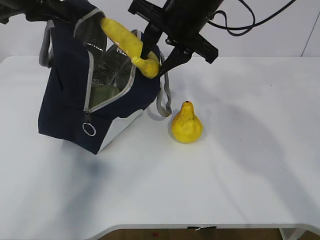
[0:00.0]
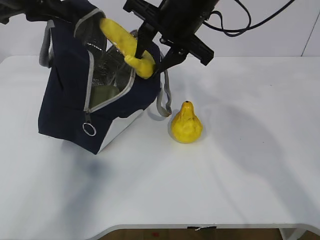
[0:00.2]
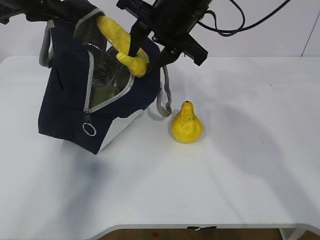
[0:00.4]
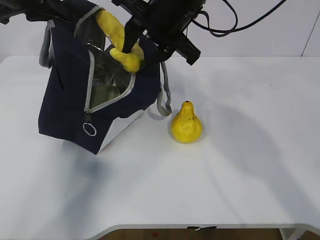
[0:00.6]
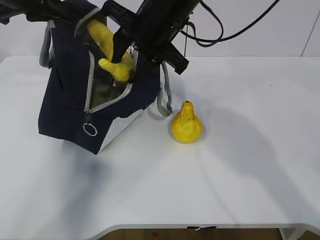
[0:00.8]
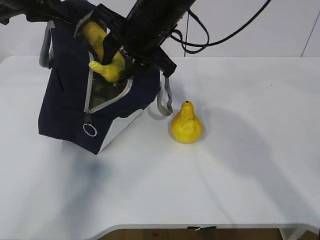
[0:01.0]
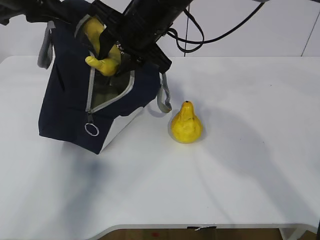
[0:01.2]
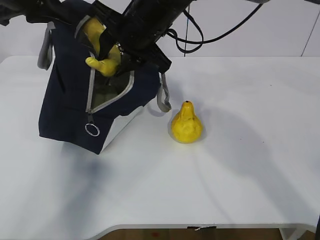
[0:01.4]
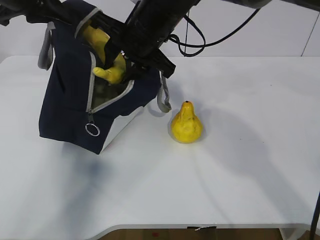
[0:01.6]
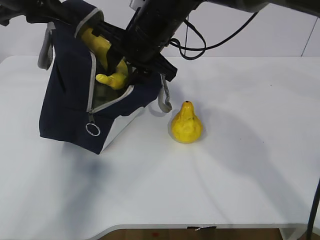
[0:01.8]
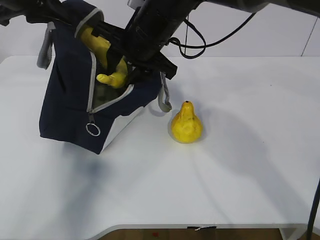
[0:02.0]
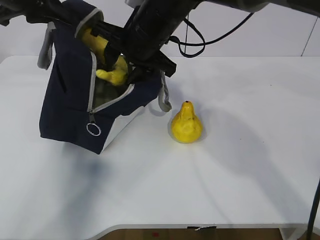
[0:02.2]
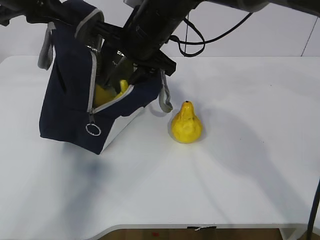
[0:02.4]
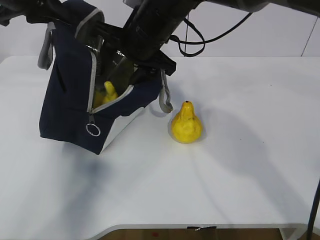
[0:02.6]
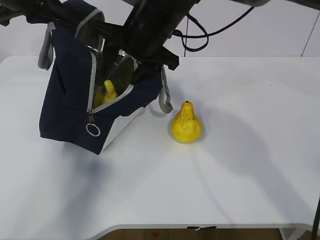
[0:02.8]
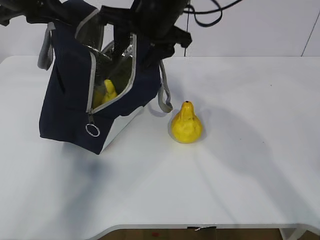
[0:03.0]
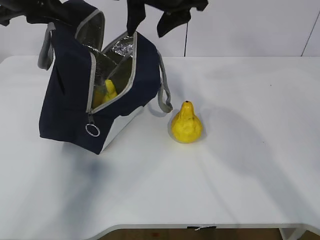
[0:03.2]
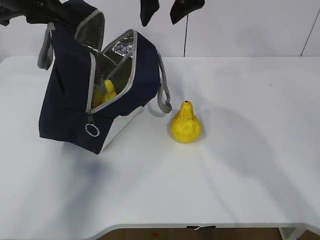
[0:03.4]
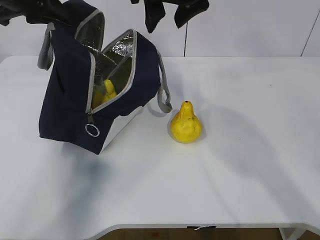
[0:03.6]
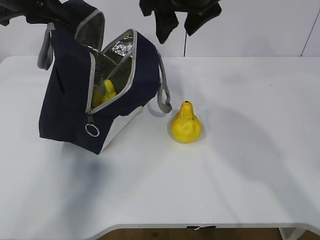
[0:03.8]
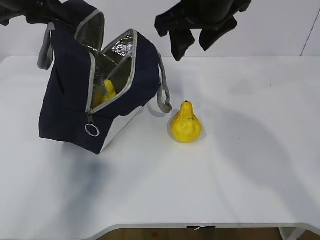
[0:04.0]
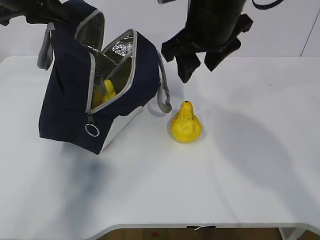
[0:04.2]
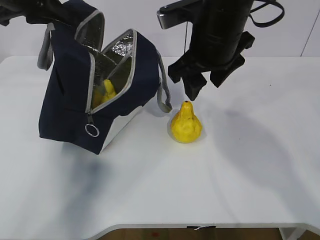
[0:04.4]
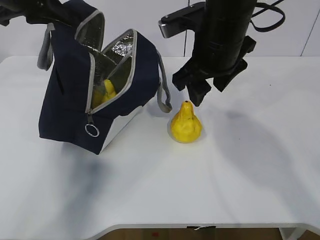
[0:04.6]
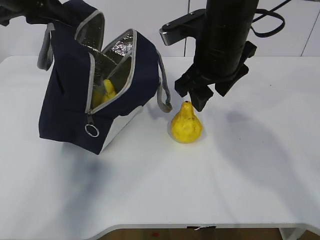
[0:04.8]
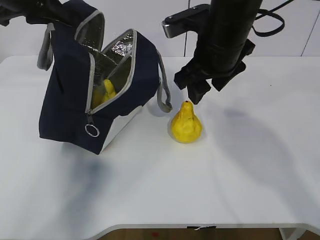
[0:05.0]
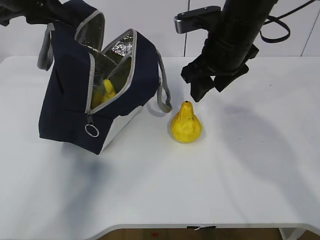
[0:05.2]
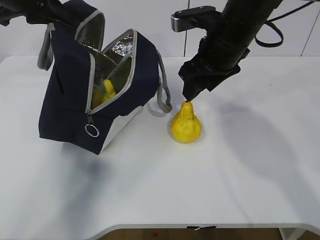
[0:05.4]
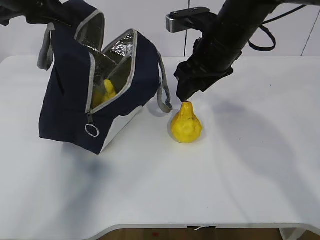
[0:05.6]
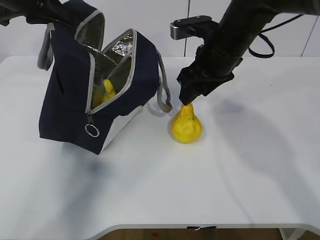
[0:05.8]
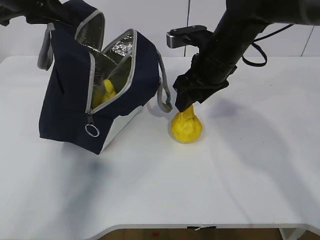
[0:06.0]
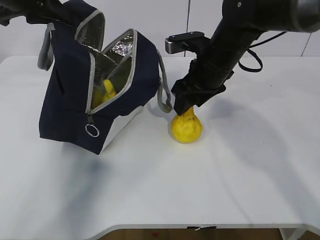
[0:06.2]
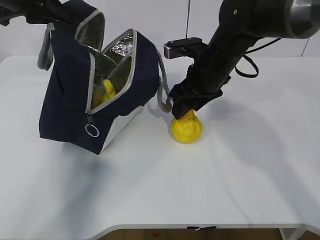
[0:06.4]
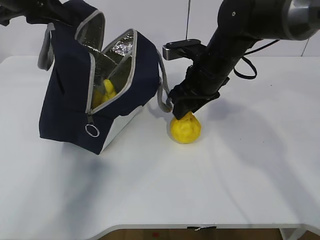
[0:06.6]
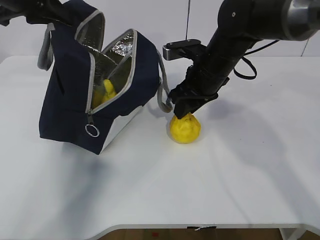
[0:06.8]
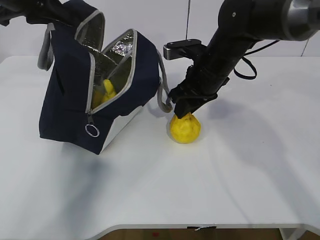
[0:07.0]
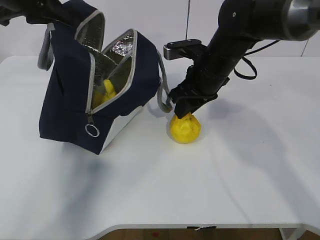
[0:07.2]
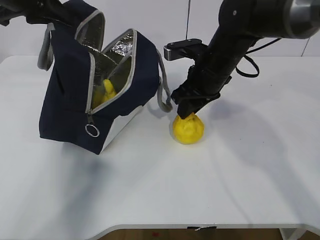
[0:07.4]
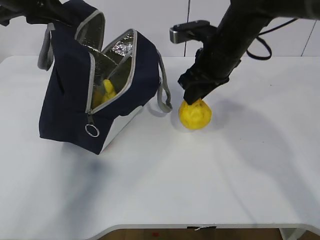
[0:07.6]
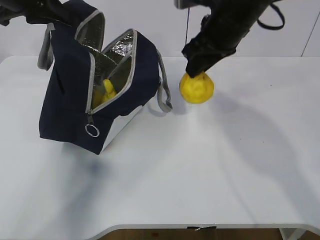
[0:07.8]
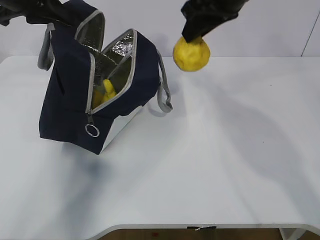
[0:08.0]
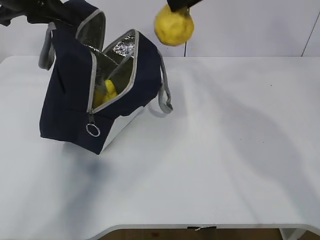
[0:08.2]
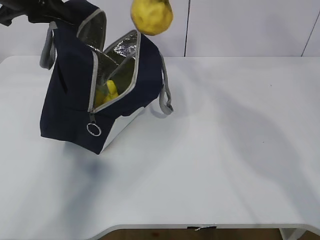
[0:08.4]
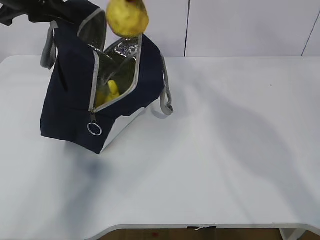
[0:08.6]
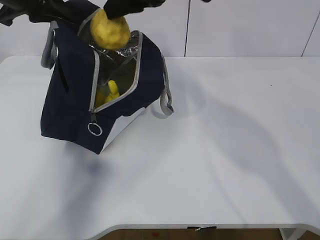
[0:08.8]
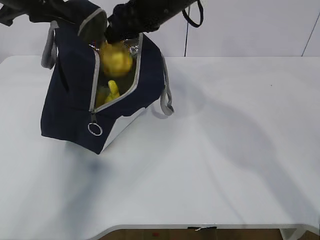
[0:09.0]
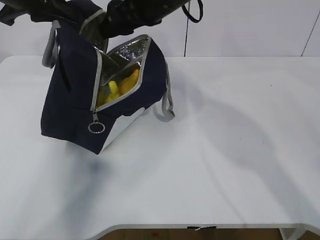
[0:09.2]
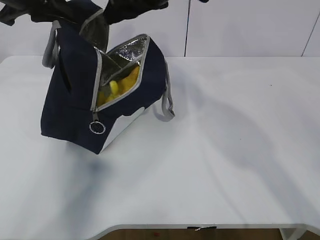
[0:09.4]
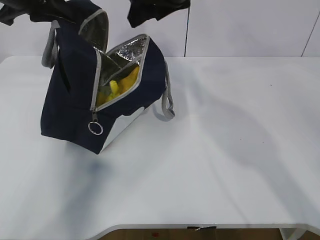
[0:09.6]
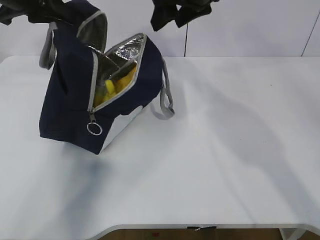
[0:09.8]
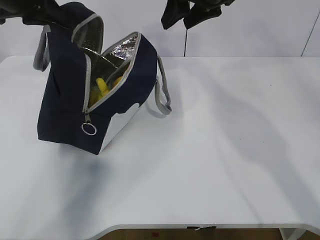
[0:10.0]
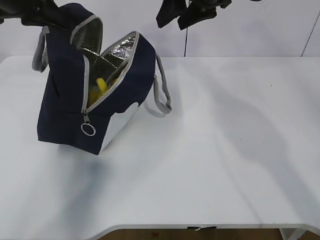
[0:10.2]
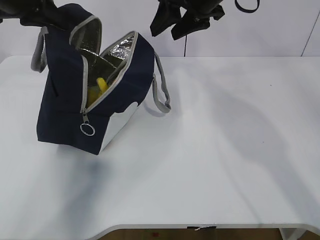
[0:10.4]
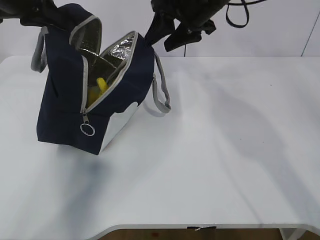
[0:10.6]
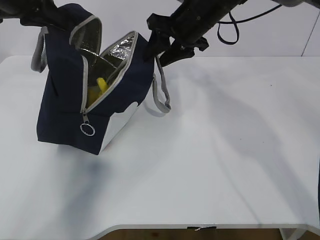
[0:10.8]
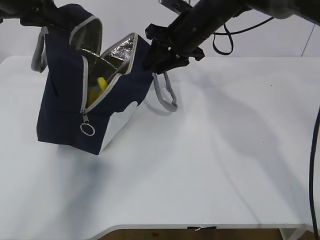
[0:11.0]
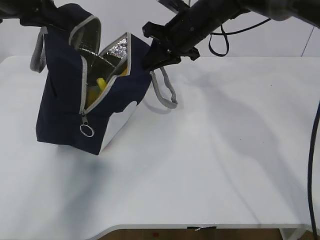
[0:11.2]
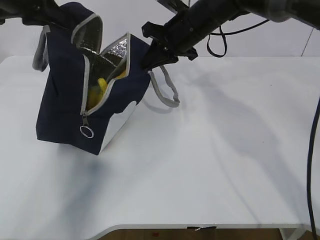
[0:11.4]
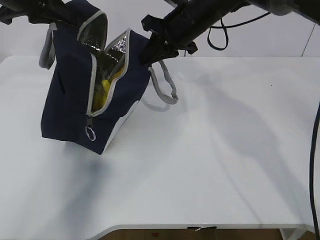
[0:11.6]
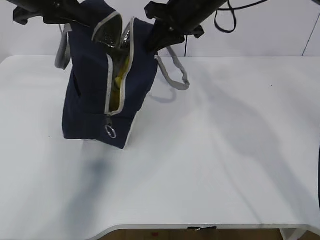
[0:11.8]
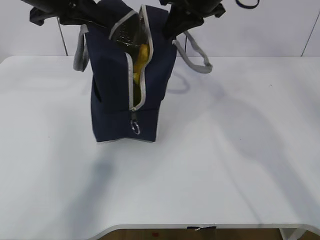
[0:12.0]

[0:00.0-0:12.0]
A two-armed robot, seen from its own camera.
Step, 0:03.8 to 0:05.2: Grab the lunch bag with your right hand.
Step, 0:05.4 to 0:07.8: Move the lunch bag to the right.
0:00.0 to 0:01.6: The right gripper shifts approximately 5 cm to the left.
0:01.6 to 0:03.0: The right gripper opens its fingers.
0:03.0 to 0:04.4: The right gripper goes some 5 cm to the right, and goes upward and returns, about 5 cm each way.
0:04.4 to 0:06.0: The right gripper travels downward by roughly 5 cm.
0:06.0 to 0:07.6: The right gripper closes.
0:07.6 to 0:09.0: The right gripper travels to the left and upward by some 10 cm.
0:09.0 to 0:10.4: The right gripper shifts roughly 10 cm to the right.
0:10.4 to 0:12.0: The right gripper reaches about 10 cm downward, then returns, and closes. Meanwhile the left gripper travels to the right by roughly 5 cm.

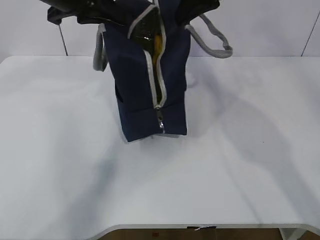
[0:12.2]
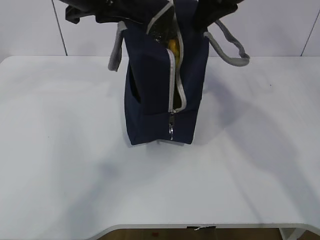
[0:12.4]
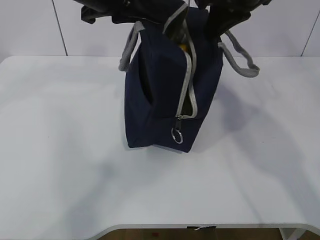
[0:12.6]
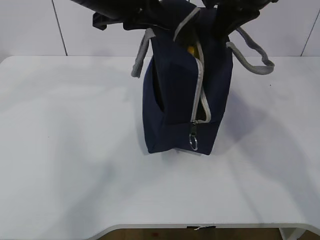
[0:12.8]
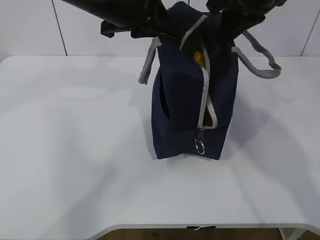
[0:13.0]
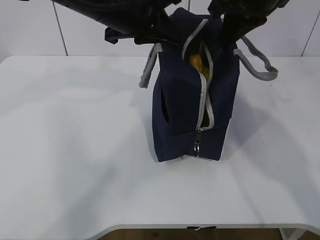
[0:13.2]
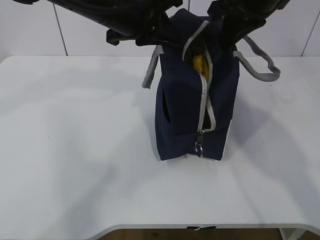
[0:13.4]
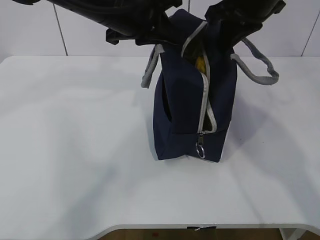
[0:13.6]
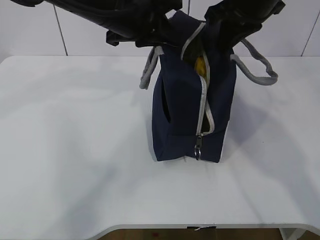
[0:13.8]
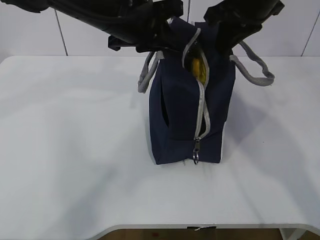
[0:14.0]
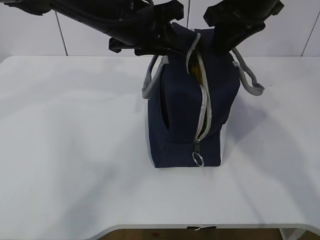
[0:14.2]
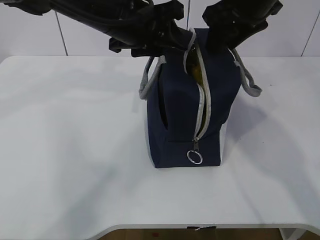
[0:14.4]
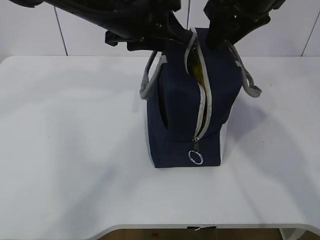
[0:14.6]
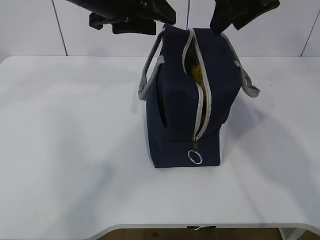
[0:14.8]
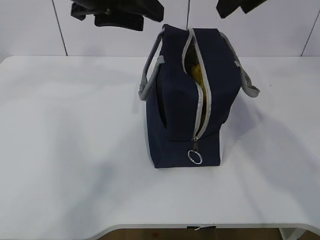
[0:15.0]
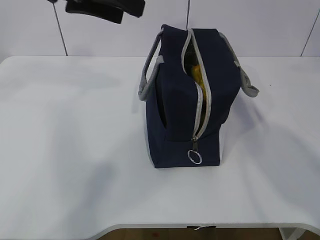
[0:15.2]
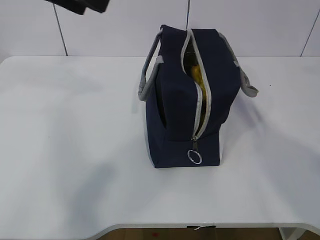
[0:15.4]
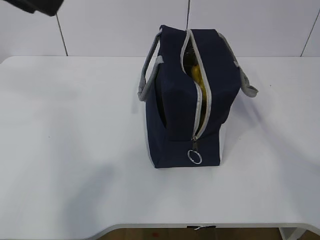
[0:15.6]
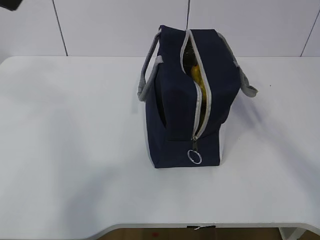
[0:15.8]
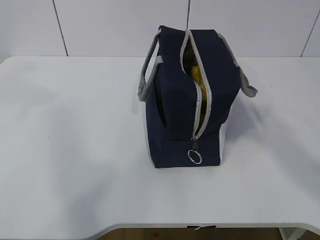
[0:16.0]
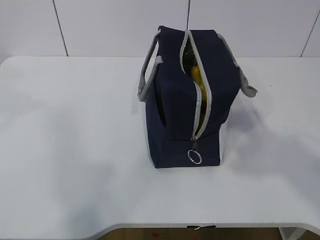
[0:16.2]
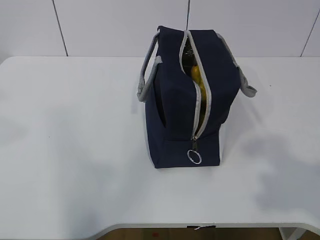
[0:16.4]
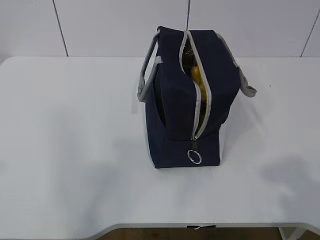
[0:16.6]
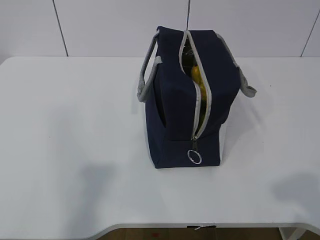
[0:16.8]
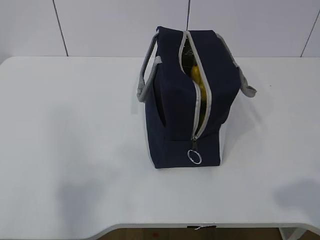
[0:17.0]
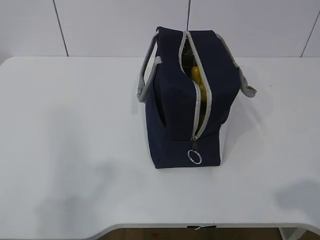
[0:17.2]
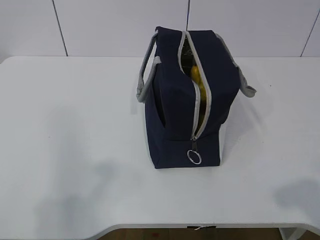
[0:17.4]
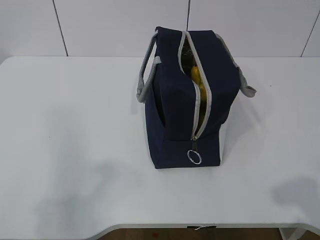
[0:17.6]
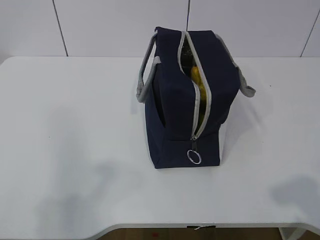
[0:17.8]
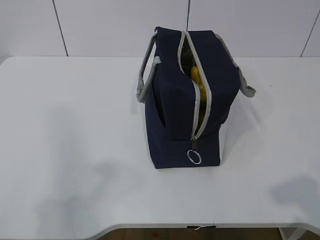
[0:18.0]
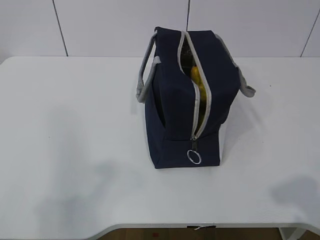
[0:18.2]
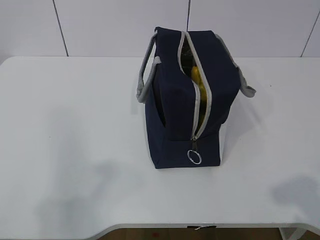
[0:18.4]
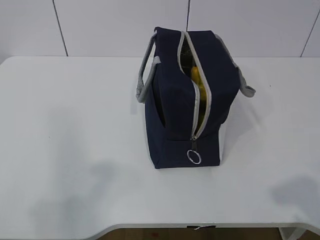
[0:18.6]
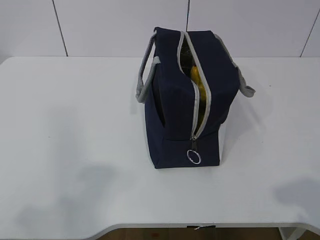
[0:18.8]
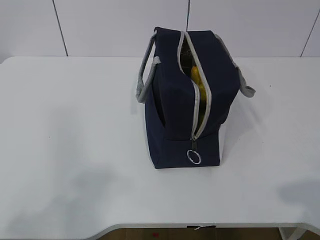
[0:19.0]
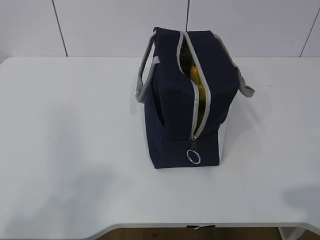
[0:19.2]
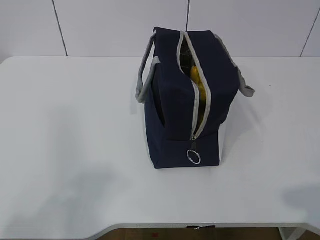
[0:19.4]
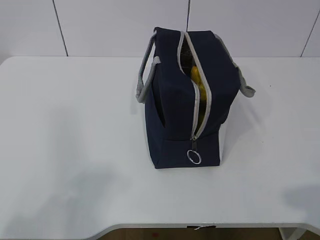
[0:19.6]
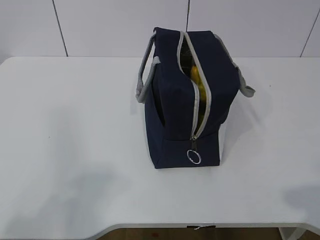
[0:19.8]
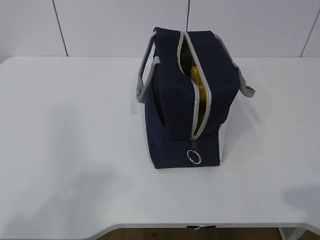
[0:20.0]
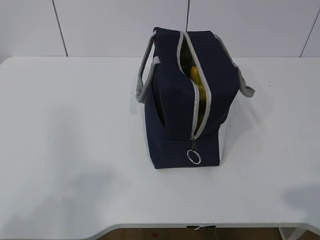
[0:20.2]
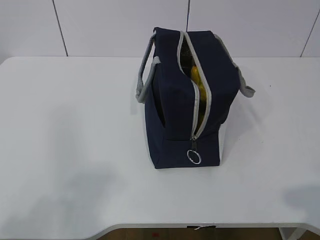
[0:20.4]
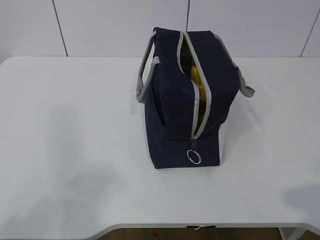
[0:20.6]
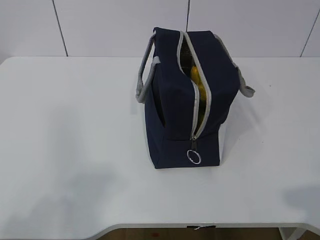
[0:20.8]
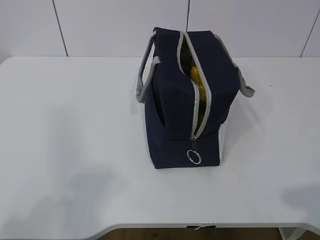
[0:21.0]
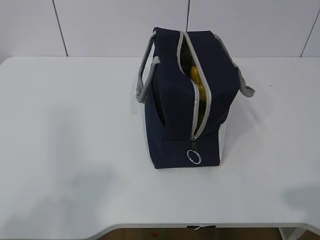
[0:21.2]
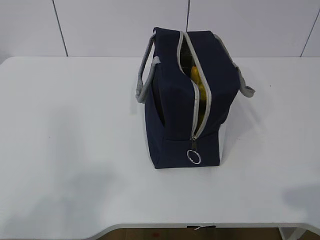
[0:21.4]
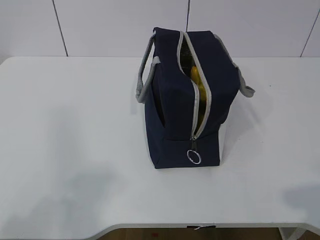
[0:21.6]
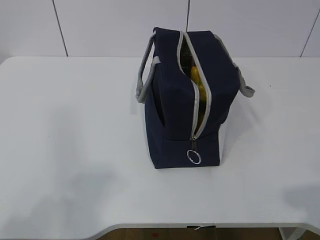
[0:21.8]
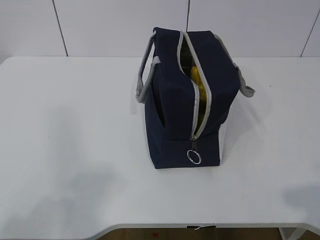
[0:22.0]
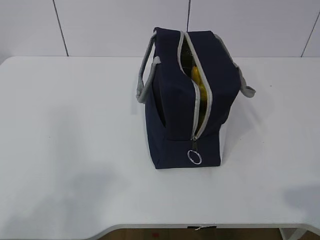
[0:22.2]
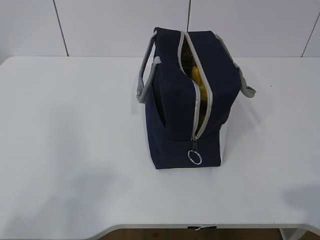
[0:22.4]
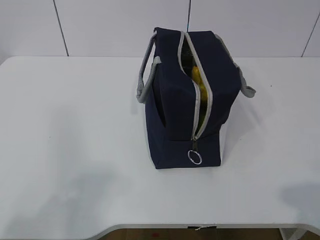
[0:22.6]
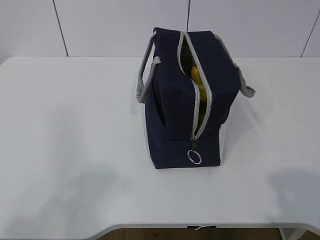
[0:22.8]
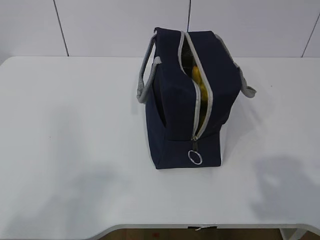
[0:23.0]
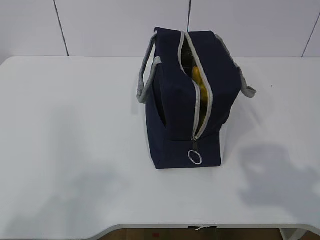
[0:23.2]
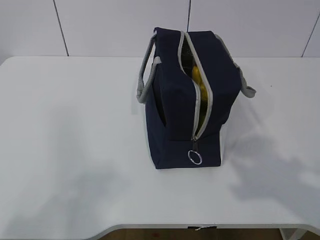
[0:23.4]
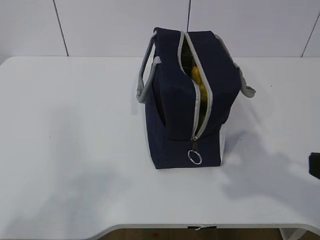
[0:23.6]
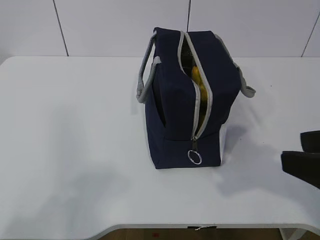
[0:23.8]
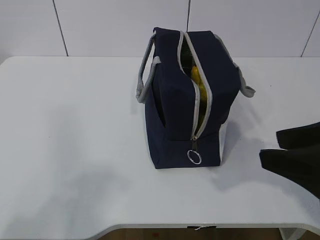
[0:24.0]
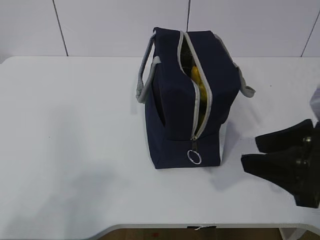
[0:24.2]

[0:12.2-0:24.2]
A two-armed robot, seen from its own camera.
0:12.2 to 0:13.8: The left gripper travels to the right by roughly 10 cm; the right gripper moves some 5 cm.
0:13.8 to 0:15.2: The left gripper heads upward and to the left, covering approximately 10 cm, and opens up, while the right gripper moves upward and backward, roughly 10 cm, and opens its fingers.
0:15.2 to 0:16.6: The right gripper travels backward by some 35 cm. Meanwhile the left gripper heads backward and to the left, covering approximately 25 cm.
0:16.6 to 0:18.2: The right gripper shifts approximately 5 cm downward; the left gripper moves downward and backward, approximately 15 cm.
0:19.8 to 0:22.6: Neither gripper changes place.
0:22.6 to 0:24.2: The right gripper shifts roughly 20 cm forward.
